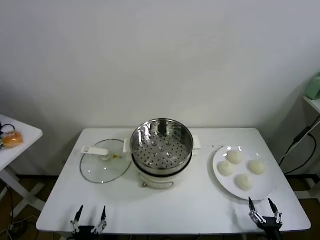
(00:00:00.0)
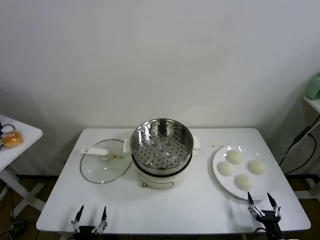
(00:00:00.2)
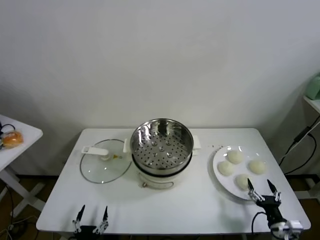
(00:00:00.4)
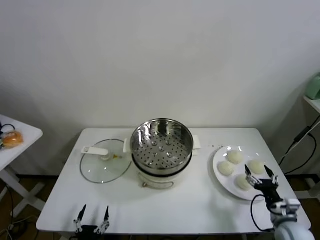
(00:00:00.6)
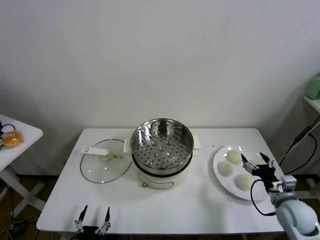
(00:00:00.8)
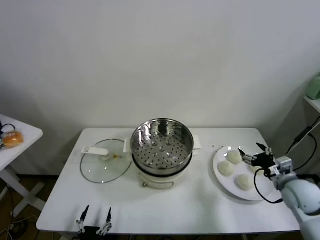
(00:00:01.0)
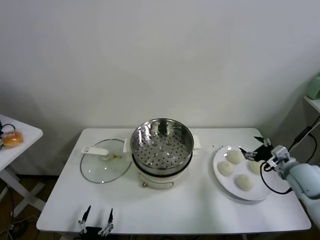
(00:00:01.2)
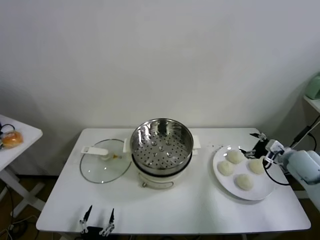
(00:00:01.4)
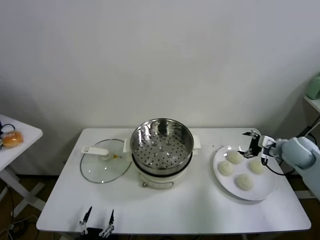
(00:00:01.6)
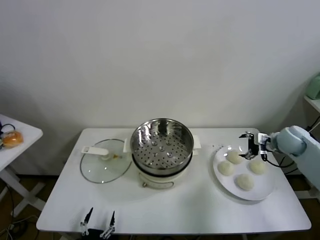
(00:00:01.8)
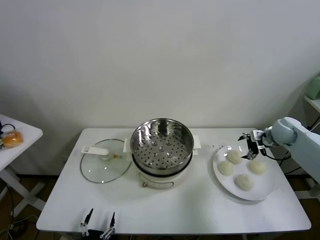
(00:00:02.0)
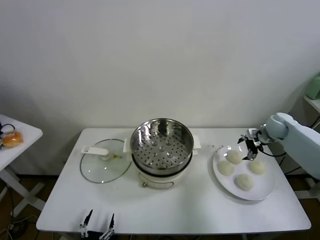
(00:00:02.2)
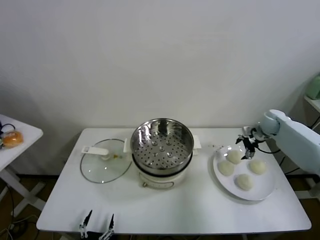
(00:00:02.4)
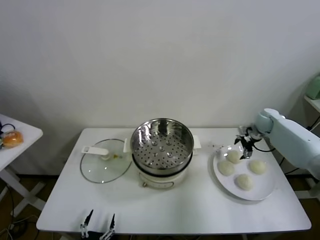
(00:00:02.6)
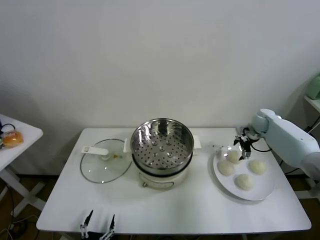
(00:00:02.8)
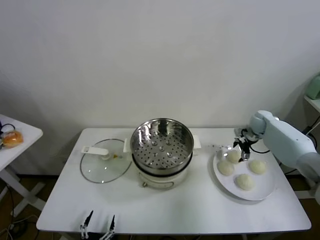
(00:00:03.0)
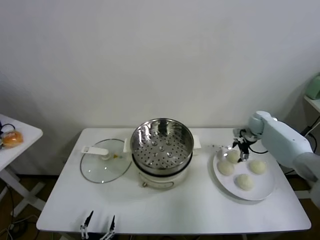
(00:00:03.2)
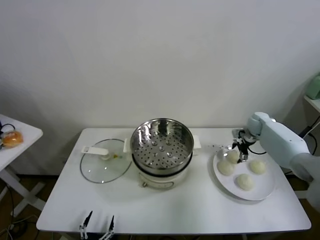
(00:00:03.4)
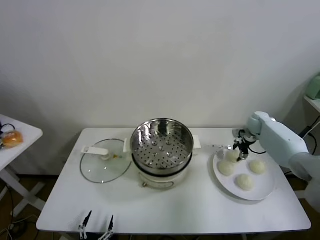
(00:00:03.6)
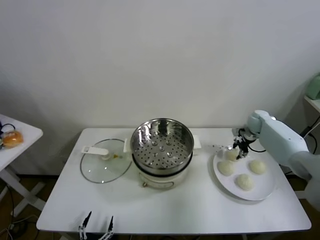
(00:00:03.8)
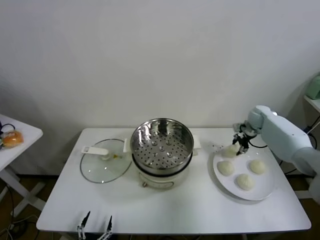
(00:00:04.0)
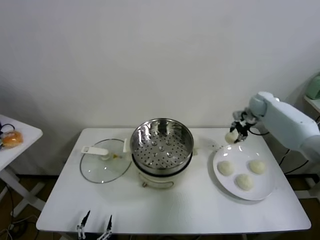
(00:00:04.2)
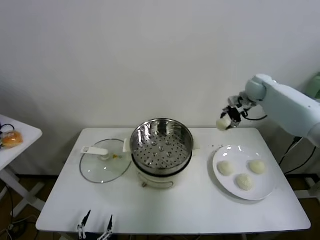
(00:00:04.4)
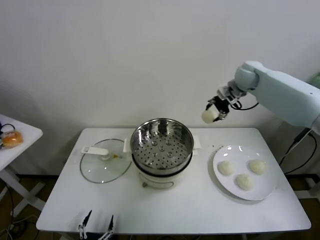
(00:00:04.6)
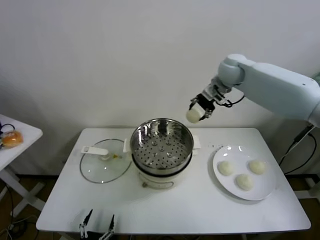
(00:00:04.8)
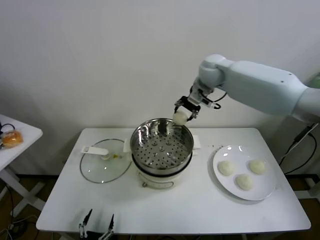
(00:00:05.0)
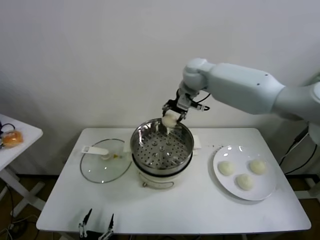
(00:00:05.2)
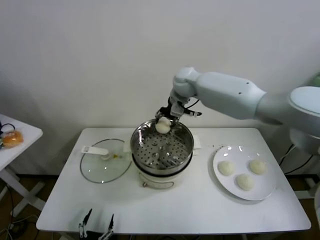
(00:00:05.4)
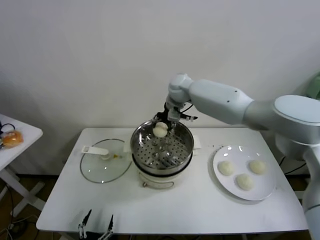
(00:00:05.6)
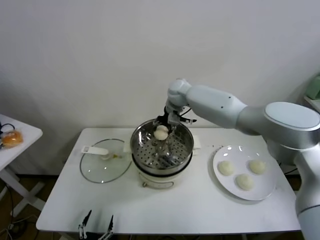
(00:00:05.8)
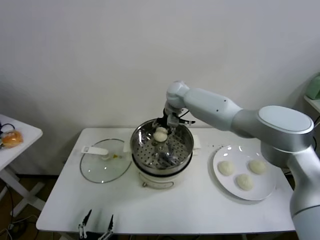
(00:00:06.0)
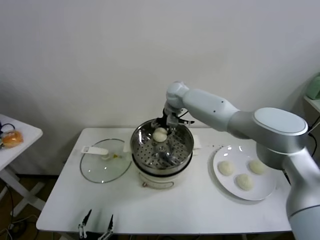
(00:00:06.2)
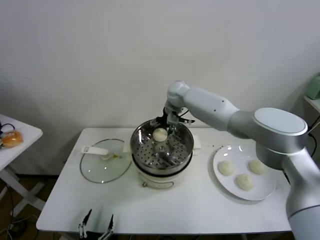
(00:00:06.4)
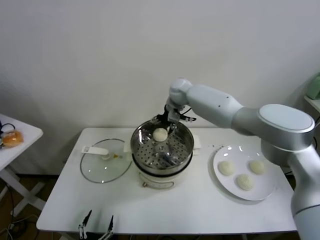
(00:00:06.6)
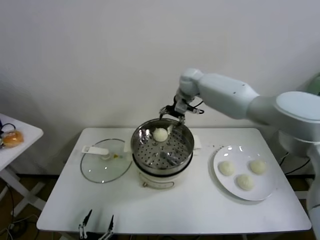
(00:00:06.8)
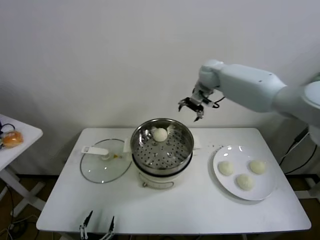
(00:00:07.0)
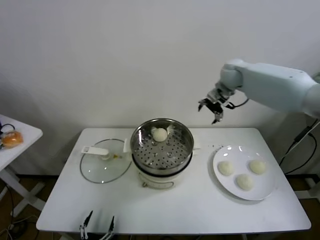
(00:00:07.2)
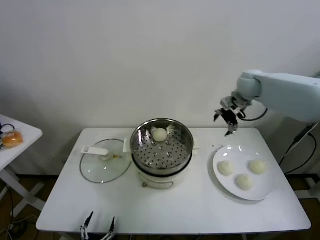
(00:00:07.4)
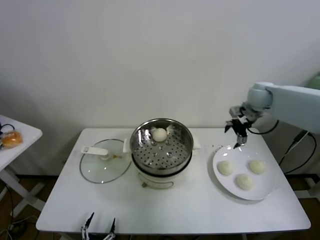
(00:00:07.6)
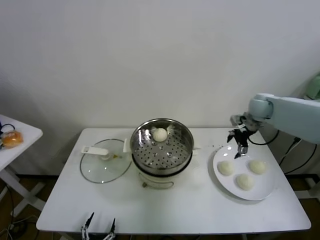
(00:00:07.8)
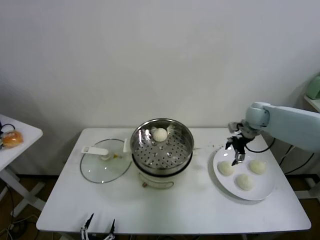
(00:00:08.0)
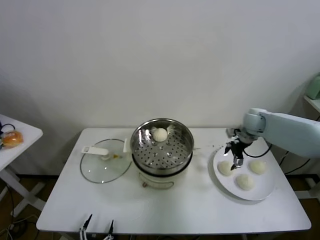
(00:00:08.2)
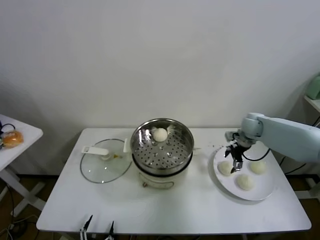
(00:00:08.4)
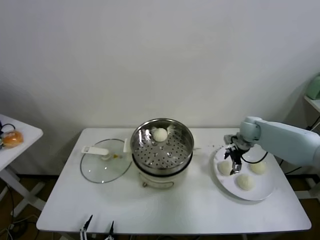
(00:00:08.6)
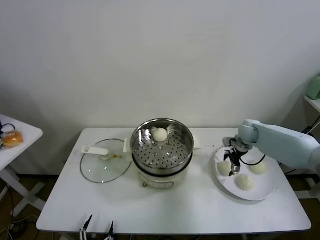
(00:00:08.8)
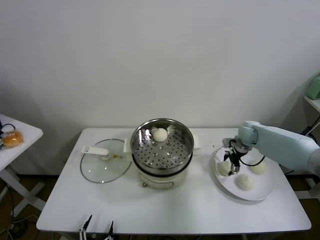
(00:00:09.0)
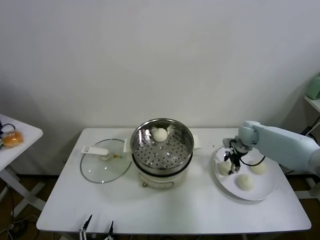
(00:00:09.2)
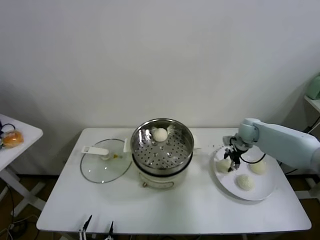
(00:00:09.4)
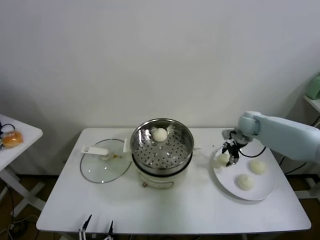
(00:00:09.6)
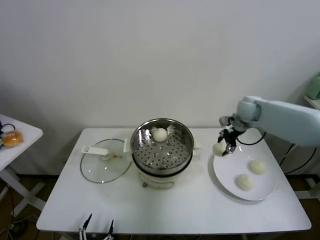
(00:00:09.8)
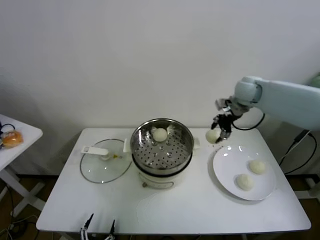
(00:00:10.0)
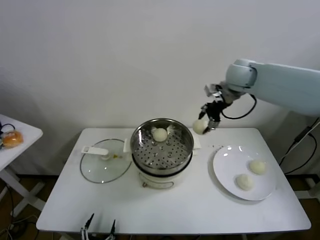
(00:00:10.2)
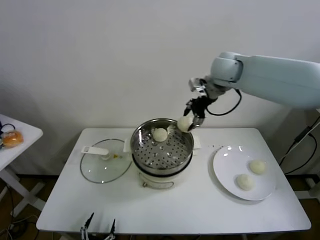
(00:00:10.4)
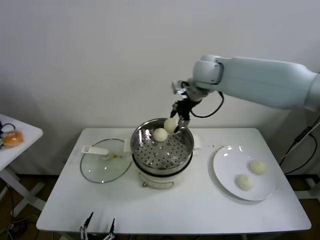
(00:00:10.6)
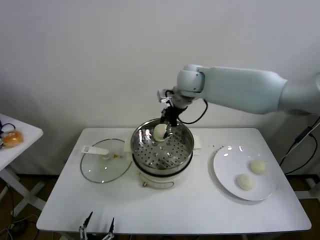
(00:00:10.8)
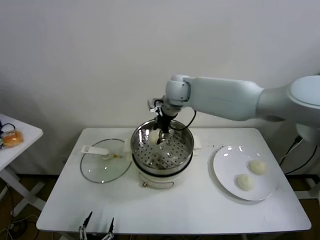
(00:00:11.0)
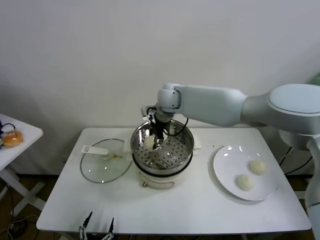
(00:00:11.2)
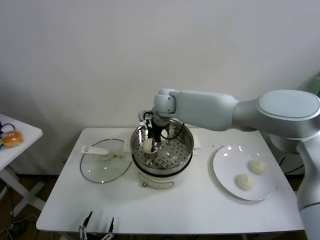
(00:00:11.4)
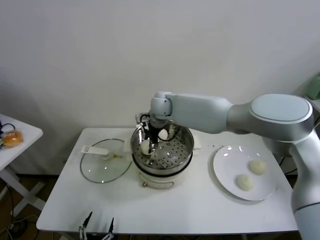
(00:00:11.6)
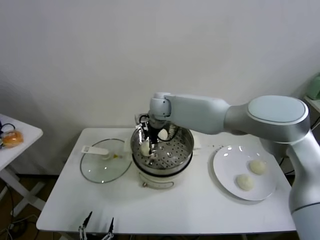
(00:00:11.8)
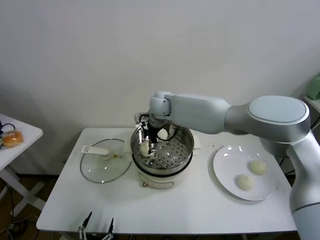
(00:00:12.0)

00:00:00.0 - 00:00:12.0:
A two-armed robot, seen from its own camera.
Task of the whole recording: take steamed baozi put them in steamer.
Step, 00:00:00.0 - 00:00:03.4: Grasp the baozi in the plate with right gripper.
Step, 00:00:03.6 - 00:00:06.4: Place the baozi on the steamer with right gripper.
Step, 00:00:06.6 - 00:00:09.2: Grasp the baozi in the plate with right gripper.
Step, 00:00:09.4 - 00:00:12.0: Place the baozi on the steamer with right gripper.
00:00:01.6 - 00:00:03.0: The right gripper travels forward by about 15 cm.
00:00:03.0 - 00:00:04.4: The right gripper shifts roughly 20 cm upward and to the left, and closes.
00:00:04.4 - 00:00:06.0: The right gripper is displaced to the left by roughly 25 cm.
00:00:06.0 - 00:00:07.6: The right gripper is displaced to the right by about 30 cm, and opens its fingers.
00:00:07.6 - 00:00:09.0: The right gripper is displaced downward by approximately 15 cm.
00:00:09.0 - 00:00:10.4: The right gripper is displaced upward and to the left by roughly 35 cm, and closes up.
00:00:10.4 - 00:00:12.0: The right gripper shifts about 25 cm to the left and downward, and opens.

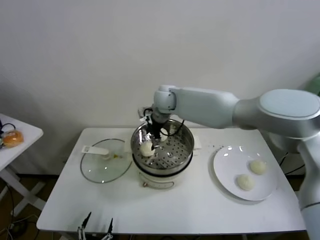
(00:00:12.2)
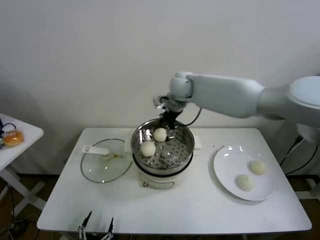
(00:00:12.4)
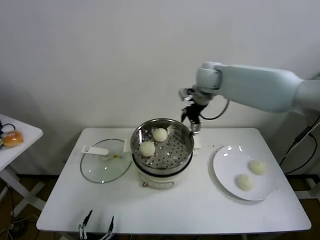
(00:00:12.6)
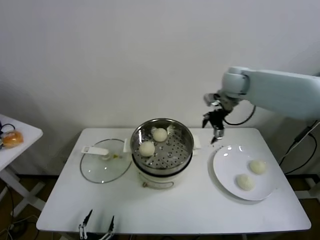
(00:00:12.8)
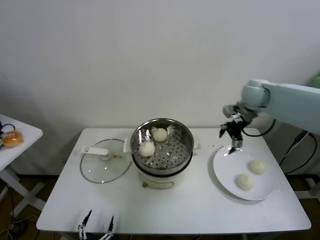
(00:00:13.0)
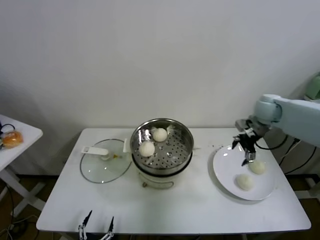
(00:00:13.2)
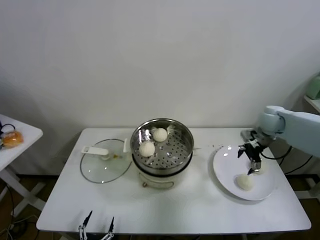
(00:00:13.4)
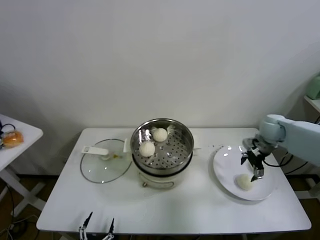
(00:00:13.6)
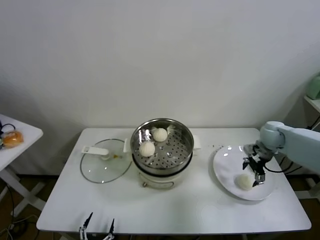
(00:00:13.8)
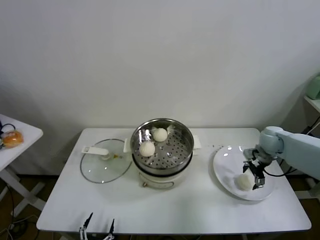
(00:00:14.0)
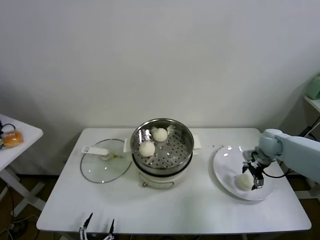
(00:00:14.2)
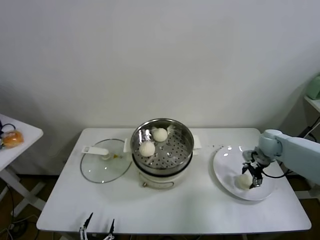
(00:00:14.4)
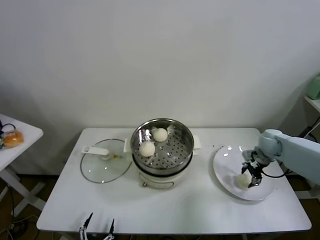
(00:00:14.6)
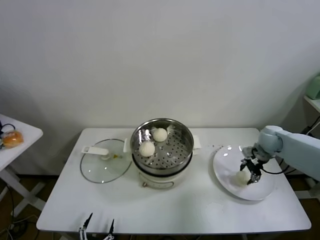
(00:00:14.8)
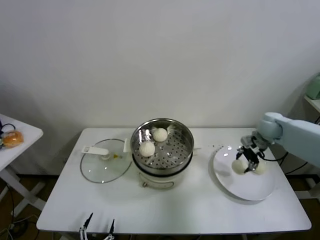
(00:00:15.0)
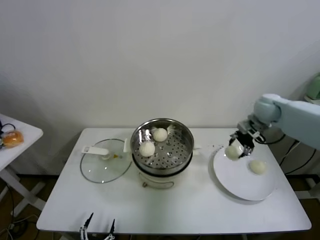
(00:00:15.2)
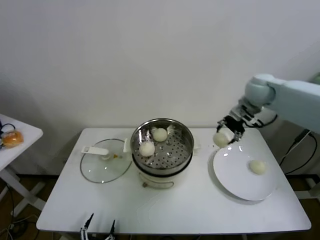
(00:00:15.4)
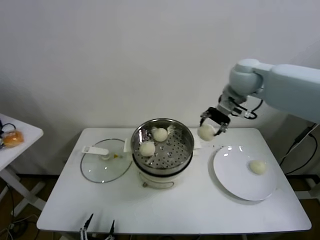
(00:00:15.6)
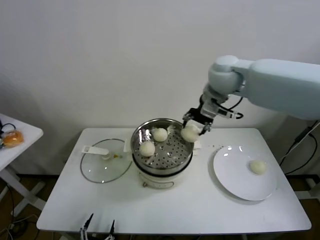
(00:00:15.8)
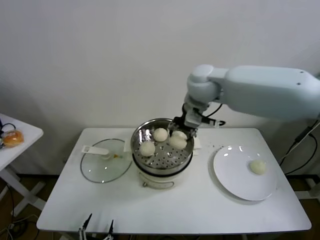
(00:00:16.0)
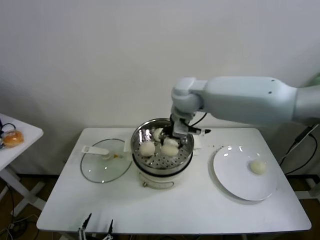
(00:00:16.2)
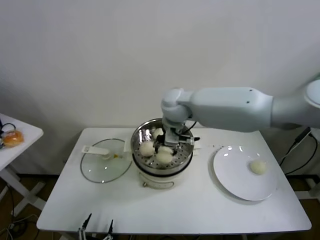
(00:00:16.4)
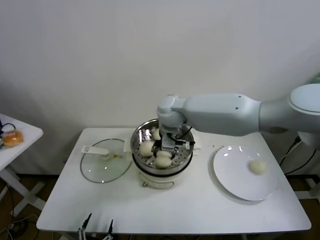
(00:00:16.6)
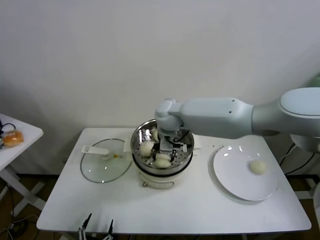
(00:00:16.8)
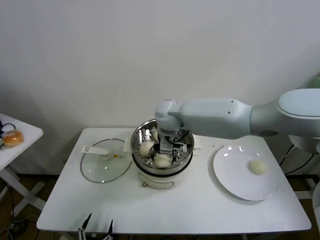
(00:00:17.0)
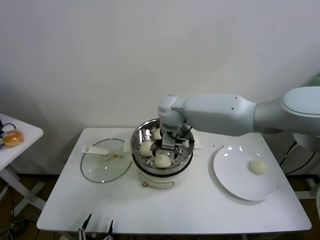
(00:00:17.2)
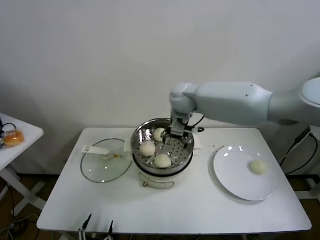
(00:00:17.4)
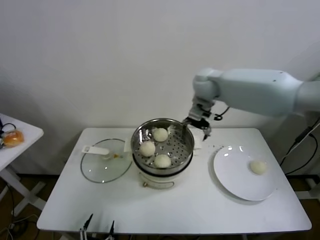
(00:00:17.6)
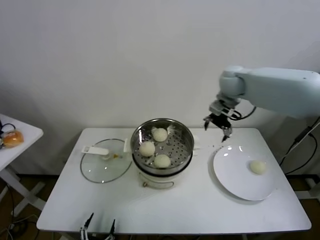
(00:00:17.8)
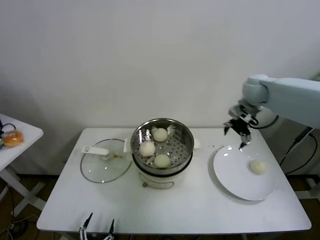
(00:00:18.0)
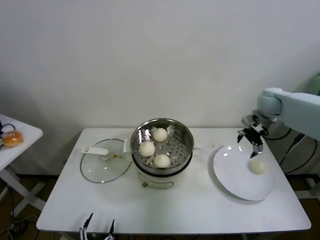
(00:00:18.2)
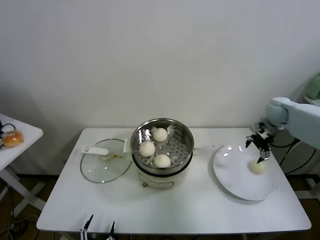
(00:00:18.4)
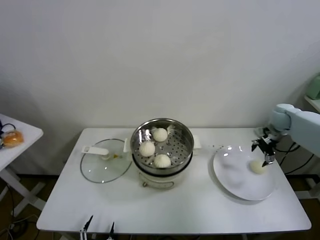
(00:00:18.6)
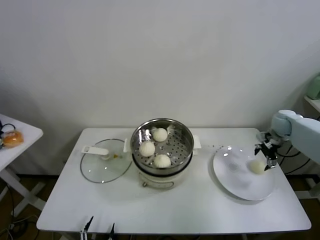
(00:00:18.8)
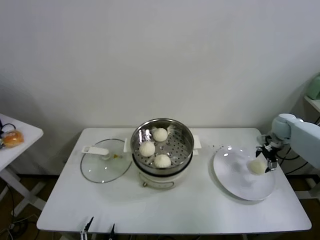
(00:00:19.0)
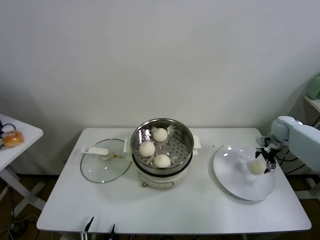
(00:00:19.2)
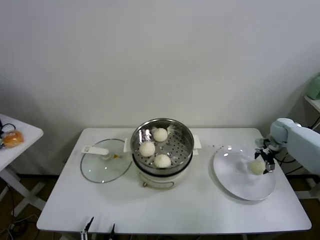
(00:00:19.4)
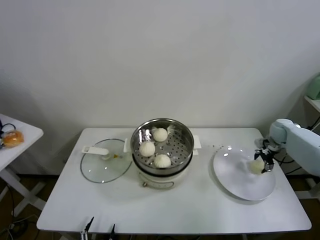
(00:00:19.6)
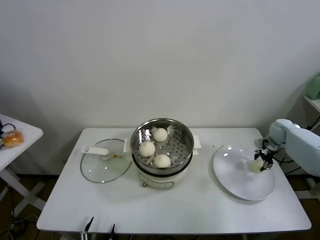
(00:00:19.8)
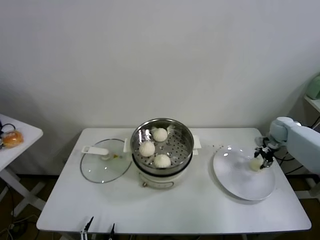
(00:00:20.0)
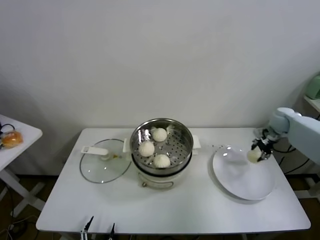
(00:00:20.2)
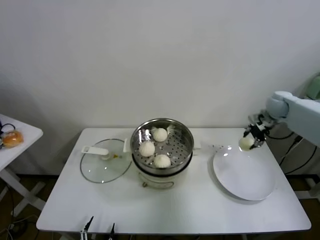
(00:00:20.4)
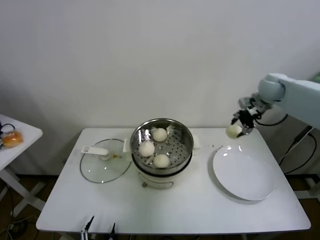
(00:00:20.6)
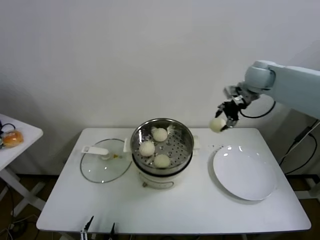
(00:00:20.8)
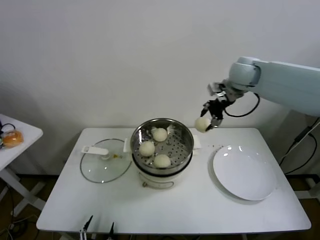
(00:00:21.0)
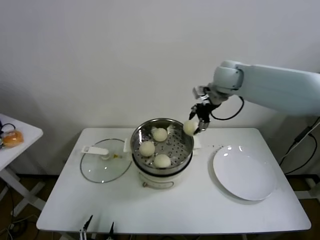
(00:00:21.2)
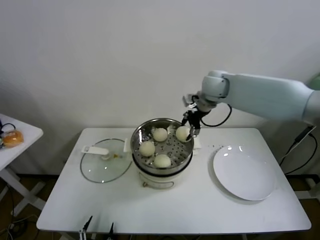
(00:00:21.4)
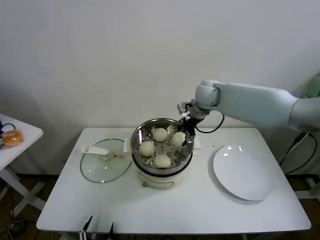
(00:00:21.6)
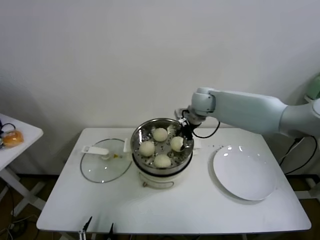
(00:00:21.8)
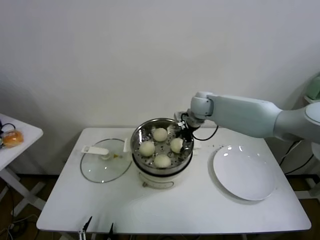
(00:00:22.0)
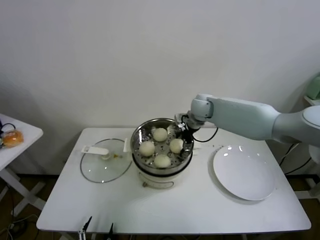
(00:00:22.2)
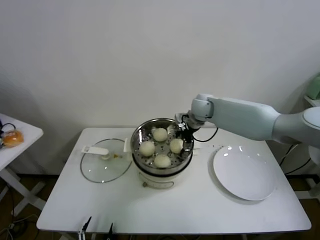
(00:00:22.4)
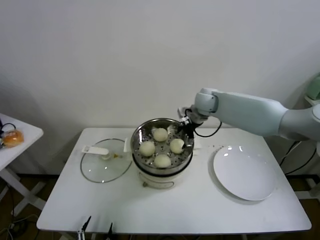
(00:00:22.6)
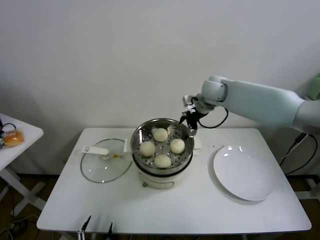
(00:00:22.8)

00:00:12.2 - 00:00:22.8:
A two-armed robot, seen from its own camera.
Task of the whole recording: take steamed baozi put them in steamer.
Step, 00:00:12.2 - 00:00:14.6: Grasp the baozi in the plate with right gripper.
Step, 00:00:14.8 - 00:00:17.0: Place the baozi on the steamer with right gripper.
Step, 00:00:17.2 - 00:00:19.6: Grasp the baozi in the plate with right gripper.
Step, 00:00:20.0 - 00:00:22.4: Place the baozi on the steamer with right gripper.
00:00:12.2 - 00:00:13.8: The right gripper travels to the right by approximately 40 cm.
00:00:13.8 - 00:00:15.2: The right gripper shifts approximately 10 cm upward, and closes its fingers.
00:00:15.2 - 00:00:16.8: The right gripper is displaced to the left by about 35 cm.
00:00:16.8 - 00:00:18.2: The right gripper is displaced to the right by approximately 35 cm, and opens up.
00:00:18.2 - 00:00:19.8: The right gripper moves downward and to the right, roughly 20 cm, and closes up.
00:00:19.8 - 00:00:21.2: The right gripper shifts roughly 35 cm to the left and upward.
00:00:21.2 - 00:00:22.8: The right gripper shifts approximately 10 cm downward, and opens up.
